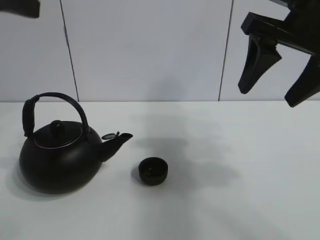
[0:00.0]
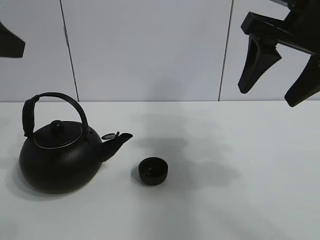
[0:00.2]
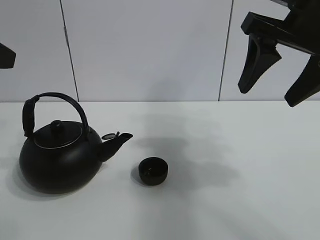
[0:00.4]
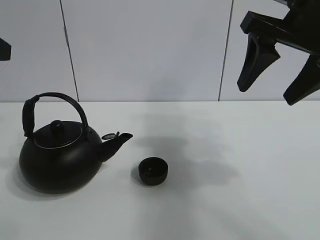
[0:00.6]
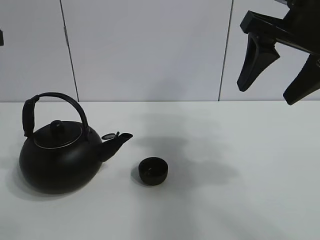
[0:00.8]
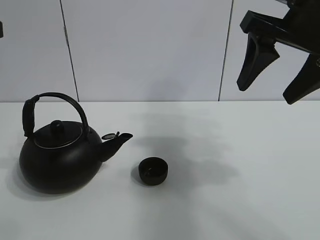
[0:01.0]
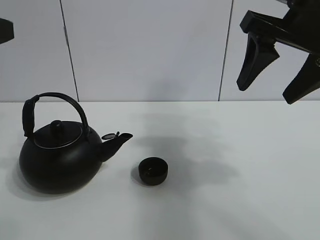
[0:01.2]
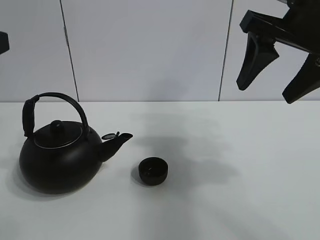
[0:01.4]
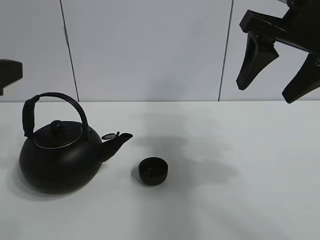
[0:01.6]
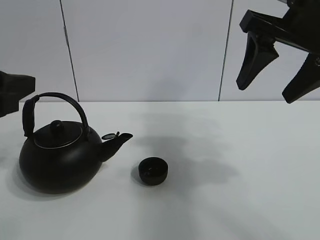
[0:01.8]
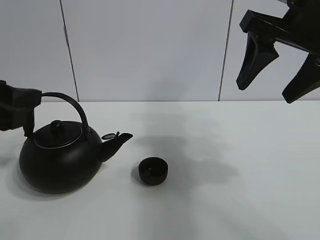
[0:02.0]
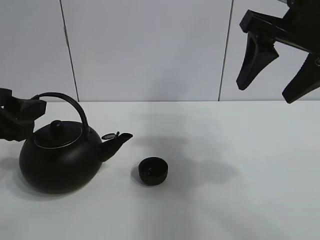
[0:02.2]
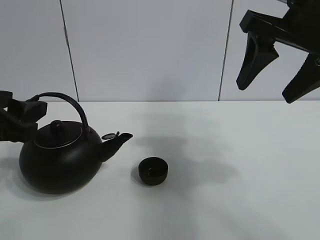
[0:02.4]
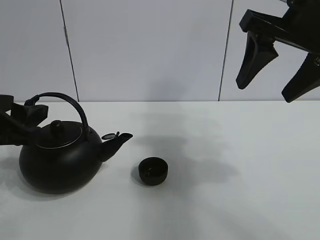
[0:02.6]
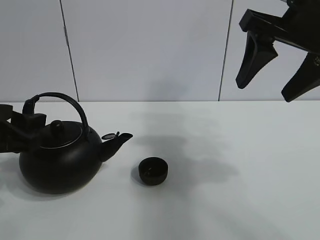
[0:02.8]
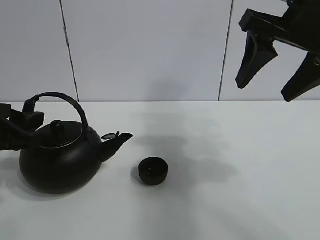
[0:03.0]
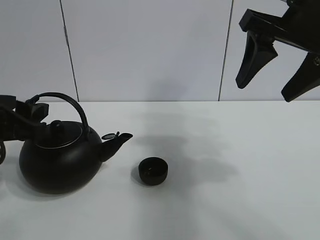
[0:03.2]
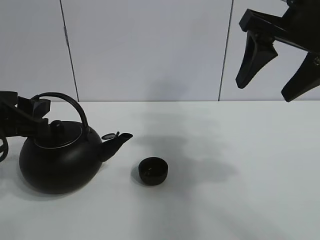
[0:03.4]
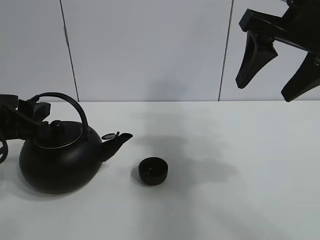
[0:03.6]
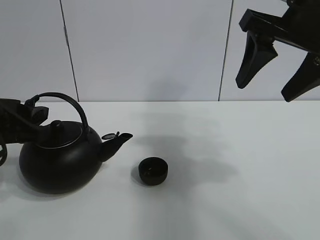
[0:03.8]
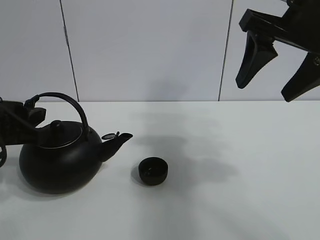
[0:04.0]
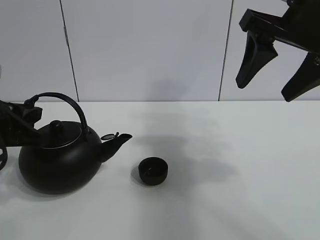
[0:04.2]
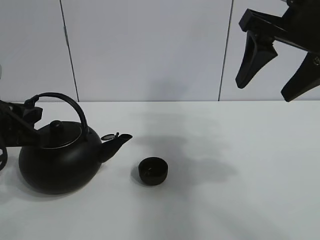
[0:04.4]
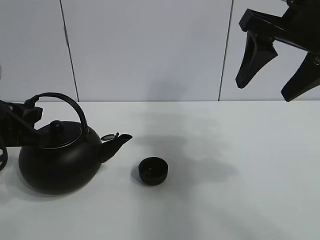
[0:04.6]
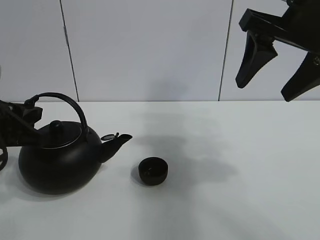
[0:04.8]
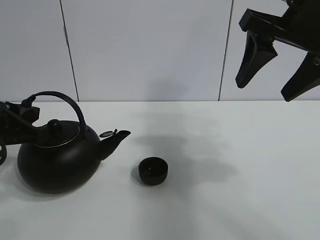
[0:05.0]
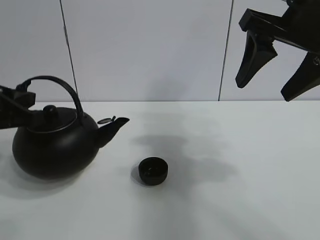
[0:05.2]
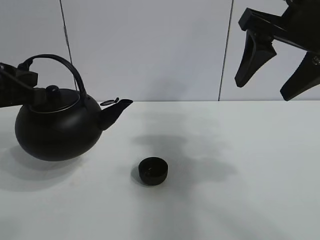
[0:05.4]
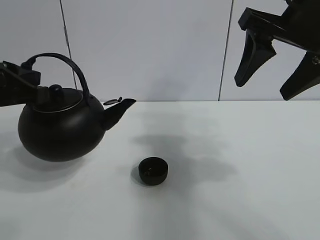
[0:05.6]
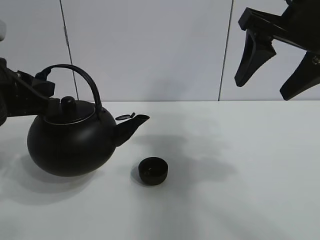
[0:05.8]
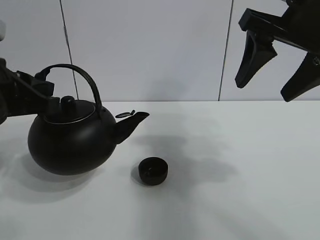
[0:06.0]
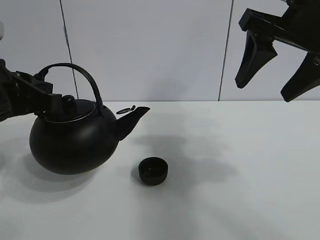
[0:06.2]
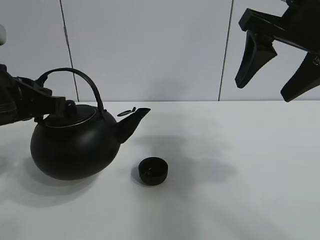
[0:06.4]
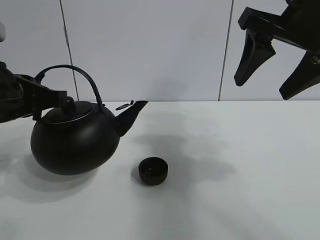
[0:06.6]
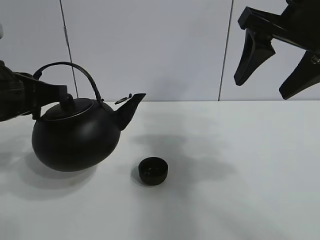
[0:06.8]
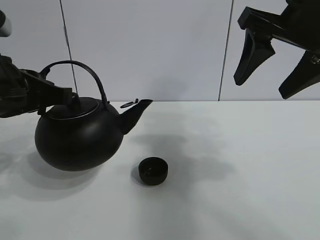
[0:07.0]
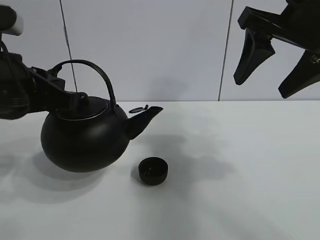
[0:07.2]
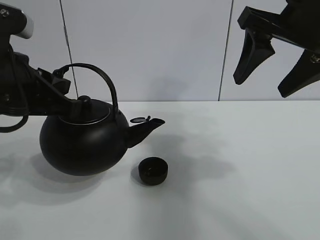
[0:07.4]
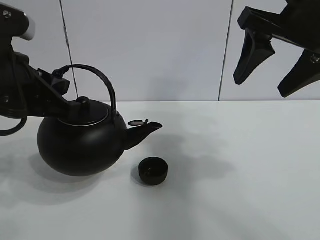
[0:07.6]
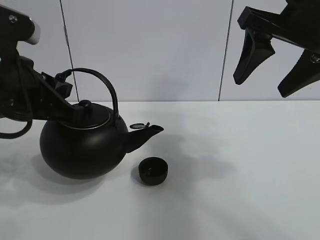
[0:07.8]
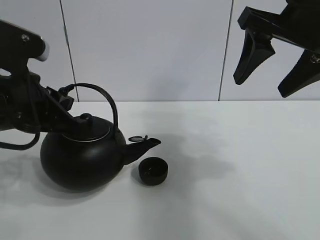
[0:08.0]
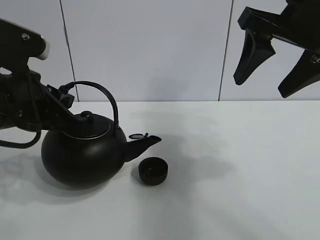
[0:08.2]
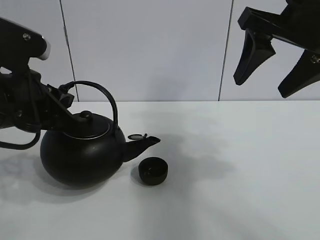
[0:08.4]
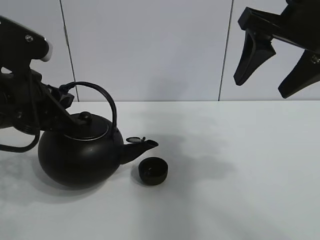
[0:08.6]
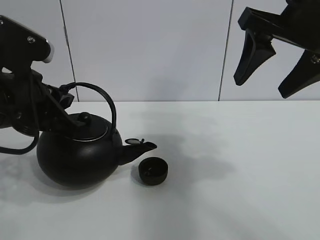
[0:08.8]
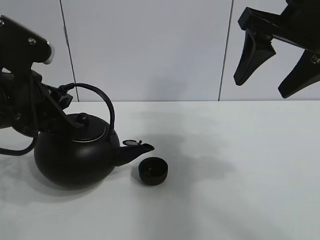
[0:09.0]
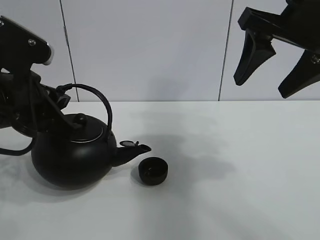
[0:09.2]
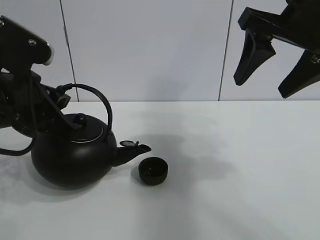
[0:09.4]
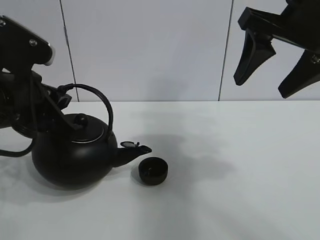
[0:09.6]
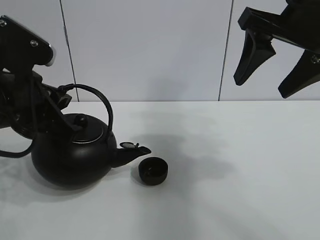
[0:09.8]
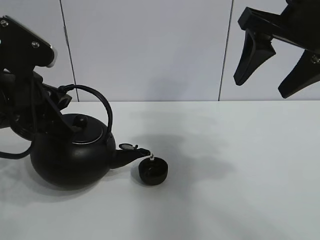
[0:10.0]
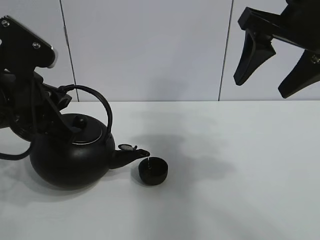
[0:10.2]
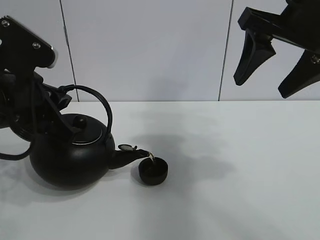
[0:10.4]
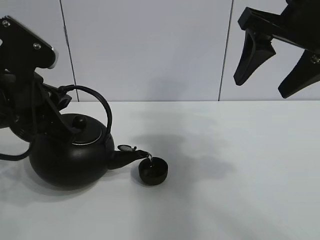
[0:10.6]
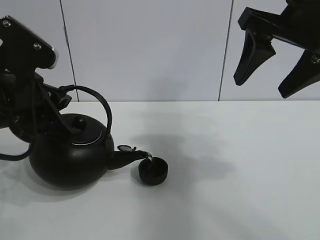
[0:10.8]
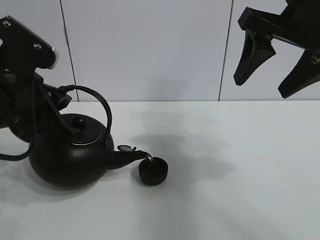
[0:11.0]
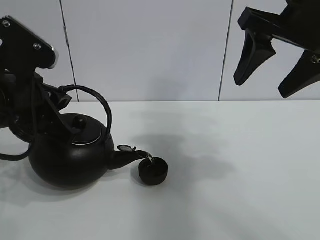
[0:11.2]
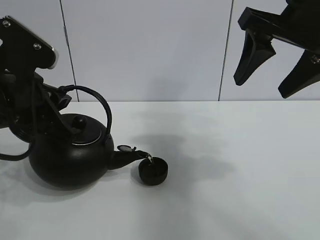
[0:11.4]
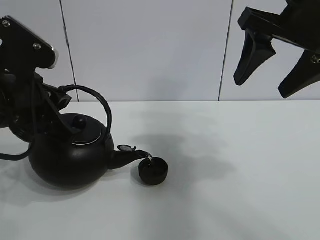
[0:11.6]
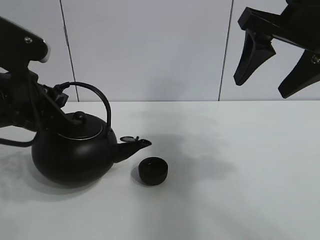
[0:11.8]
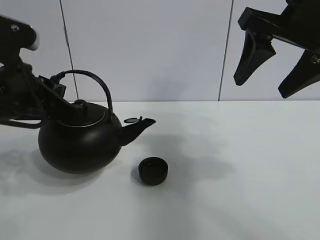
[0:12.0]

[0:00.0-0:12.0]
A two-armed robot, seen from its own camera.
Task of the whole recording: pour tea into the teacup.
Step, 0:00.0 to 0:04.4: Pick up the teapot with the left gripper.
Step, 0:04.6 to 0:11.8: Pour tea into the teacup with the left gripper.
0:00.0 to 0:01.6: The left gripper moves downward, roughly 10 cm.
0:01.6 to 0:03.0: The left gripper is displaced downward by approximately 10 cm.
0:03.0 to 0:04.4: The left gripper closes its fingers.
0:04.4 to 0:06.0: The left gripper shifts some 5 cm upward.
0:06.0 to 0:09.0: There are only small adjustments of the grippers.
0:09.0 to 0:12.0: The grippers move only a little.

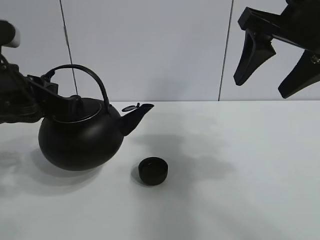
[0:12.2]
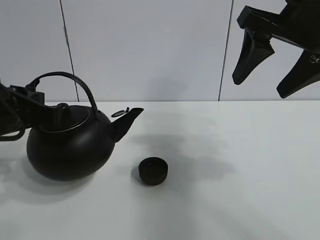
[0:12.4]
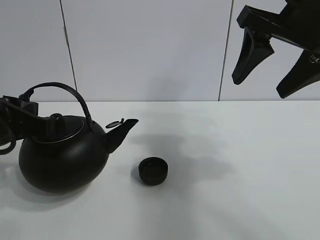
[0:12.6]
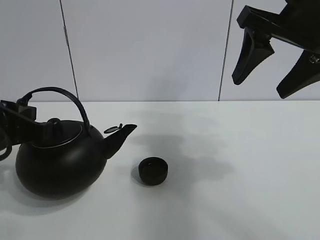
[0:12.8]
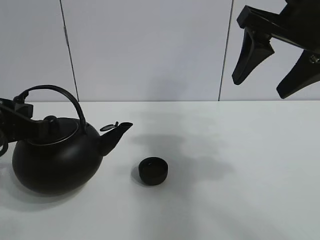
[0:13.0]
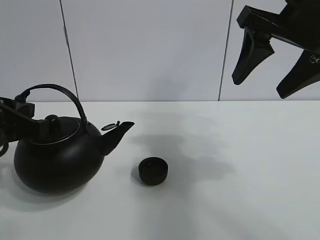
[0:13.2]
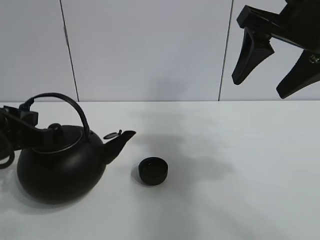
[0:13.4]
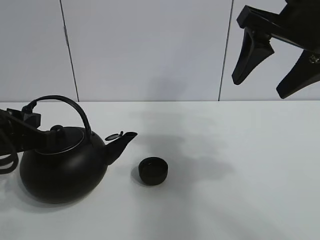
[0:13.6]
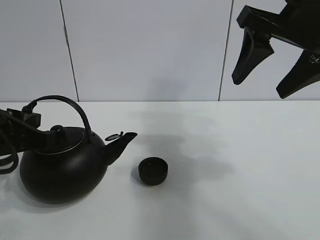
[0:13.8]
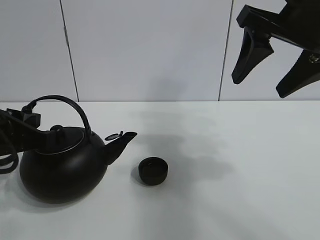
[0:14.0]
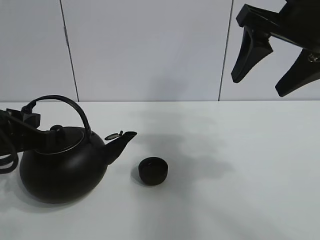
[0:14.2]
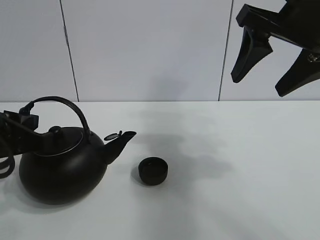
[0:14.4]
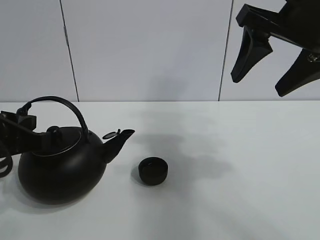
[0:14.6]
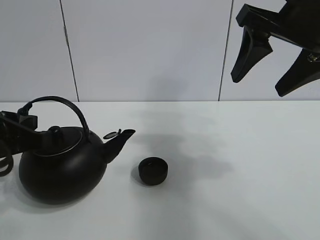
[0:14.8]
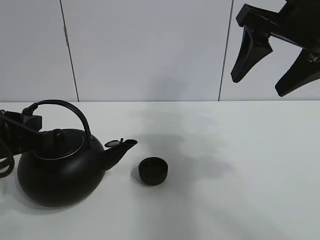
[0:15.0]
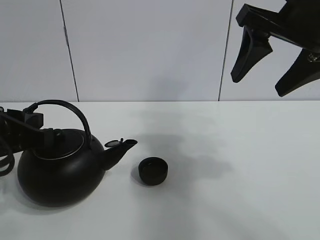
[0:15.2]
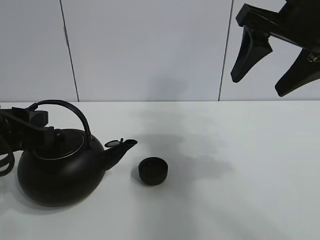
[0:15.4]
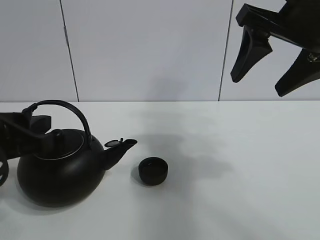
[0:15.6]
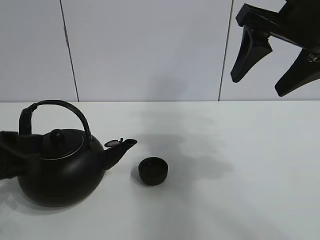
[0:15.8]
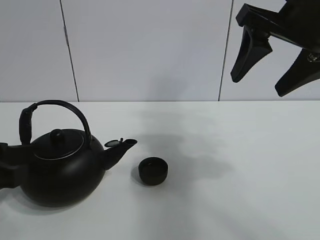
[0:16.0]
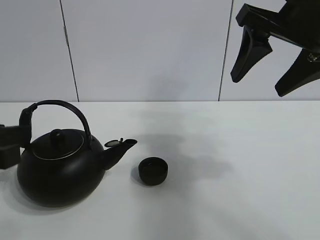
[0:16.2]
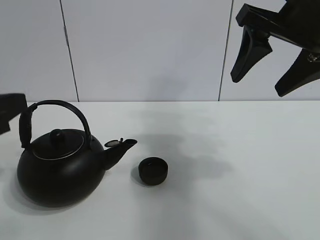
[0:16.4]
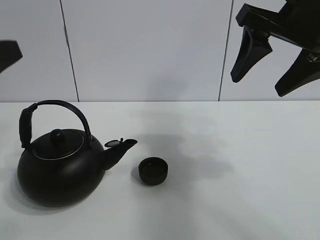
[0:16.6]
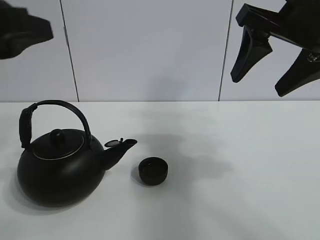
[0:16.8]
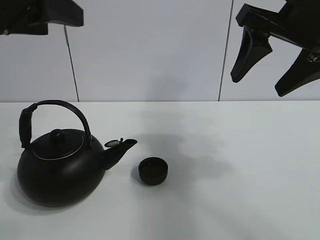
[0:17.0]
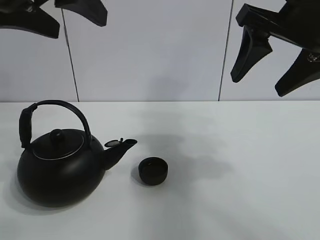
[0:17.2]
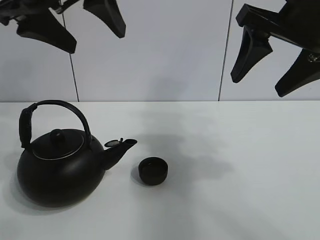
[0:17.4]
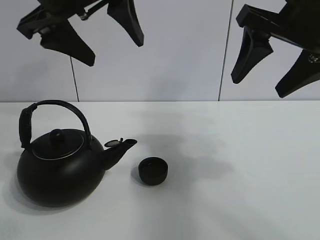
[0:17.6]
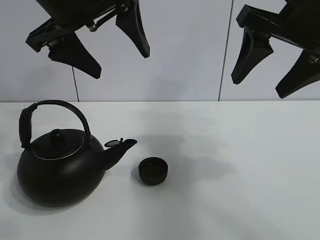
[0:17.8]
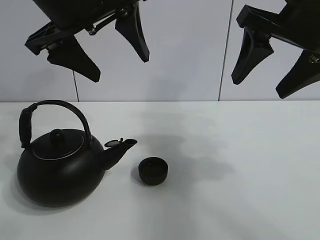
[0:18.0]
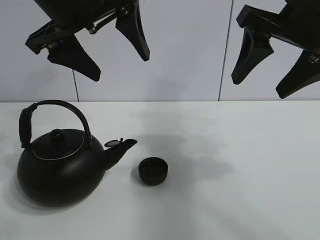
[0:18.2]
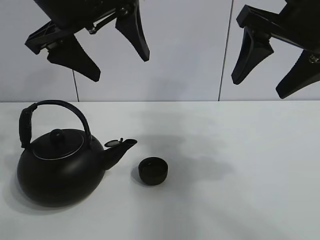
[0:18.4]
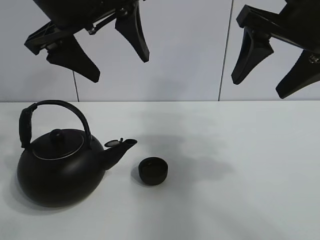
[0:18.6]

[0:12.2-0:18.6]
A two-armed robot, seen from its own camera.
Task of the whole recording: pour tea into the teacup.
0:12.2 to 0:13.8: The left gripper ends up approximately 5 cm from where it was.
0:13.8 to 0:15.4: The left gripper opens up.
0:15.4 to 0:17.0: The left gripper travels upward by roughly 15 cm.
0:17.0 to 0:18.6: The left gripper shifts approximately 10 cm forward and to the right.
